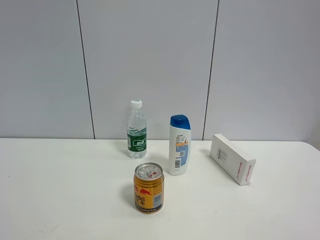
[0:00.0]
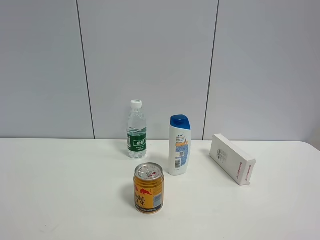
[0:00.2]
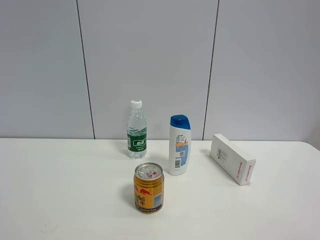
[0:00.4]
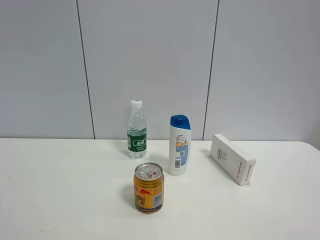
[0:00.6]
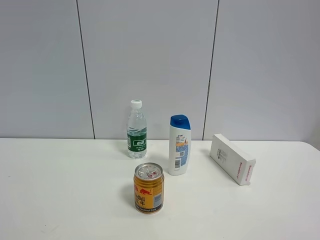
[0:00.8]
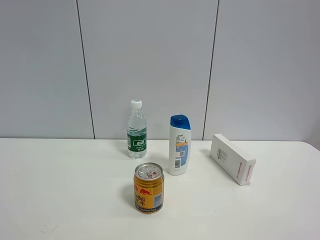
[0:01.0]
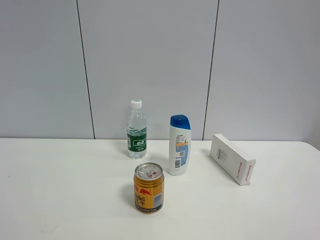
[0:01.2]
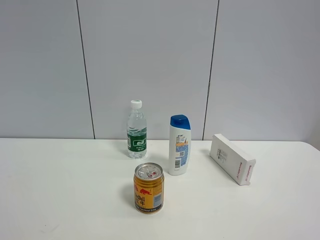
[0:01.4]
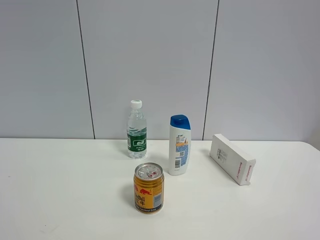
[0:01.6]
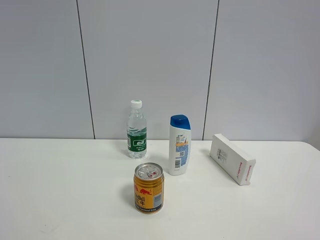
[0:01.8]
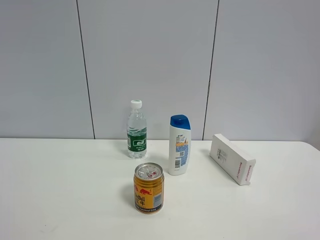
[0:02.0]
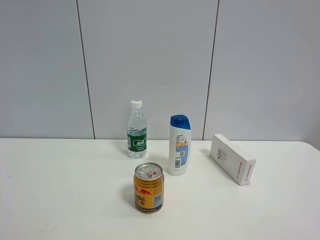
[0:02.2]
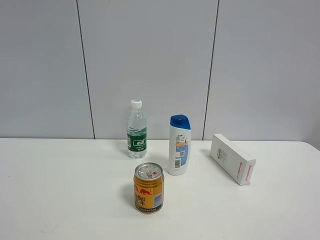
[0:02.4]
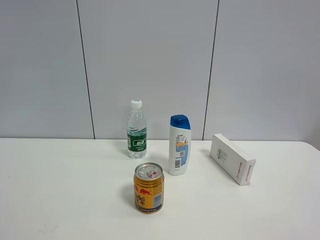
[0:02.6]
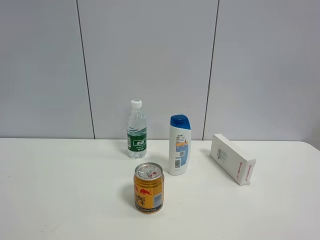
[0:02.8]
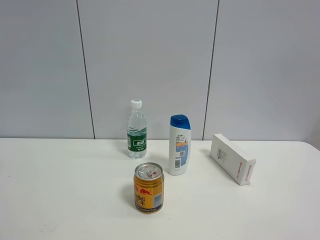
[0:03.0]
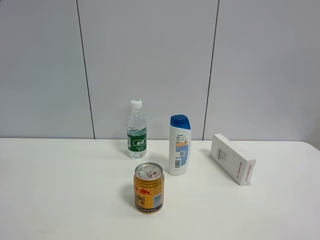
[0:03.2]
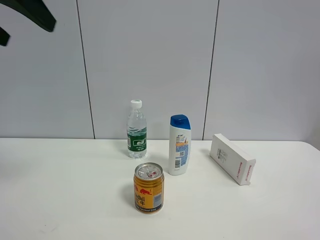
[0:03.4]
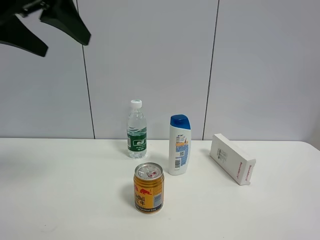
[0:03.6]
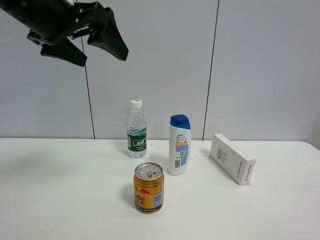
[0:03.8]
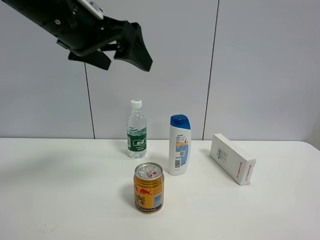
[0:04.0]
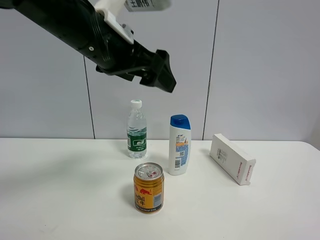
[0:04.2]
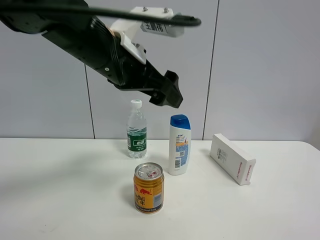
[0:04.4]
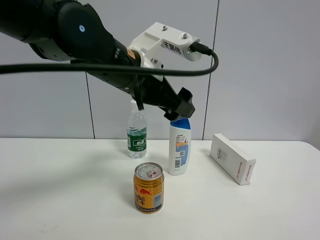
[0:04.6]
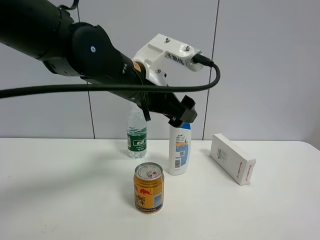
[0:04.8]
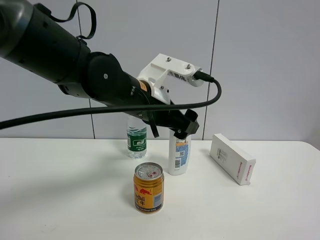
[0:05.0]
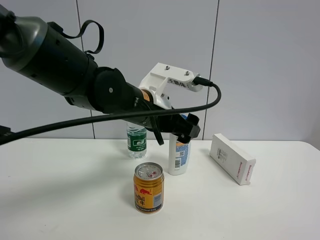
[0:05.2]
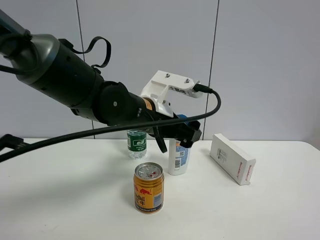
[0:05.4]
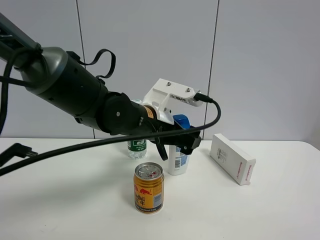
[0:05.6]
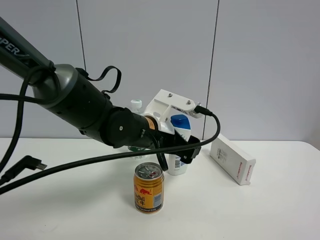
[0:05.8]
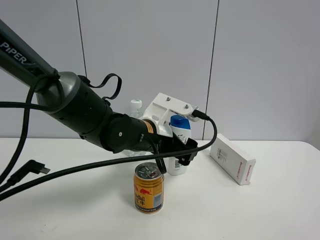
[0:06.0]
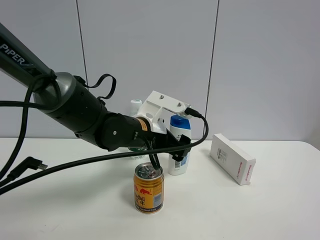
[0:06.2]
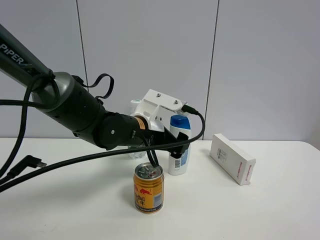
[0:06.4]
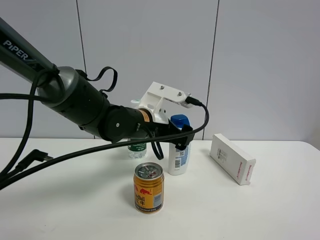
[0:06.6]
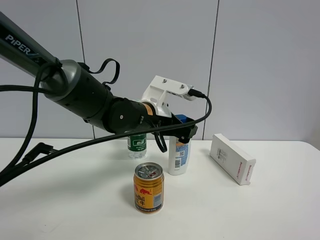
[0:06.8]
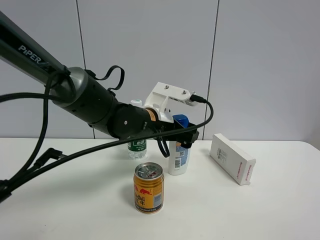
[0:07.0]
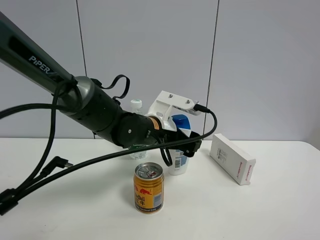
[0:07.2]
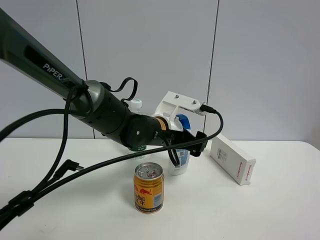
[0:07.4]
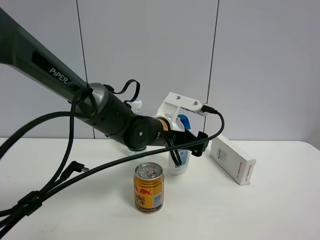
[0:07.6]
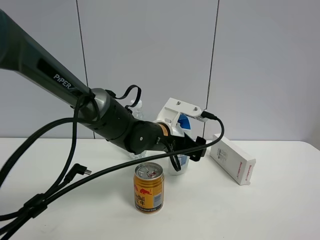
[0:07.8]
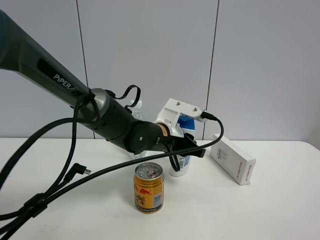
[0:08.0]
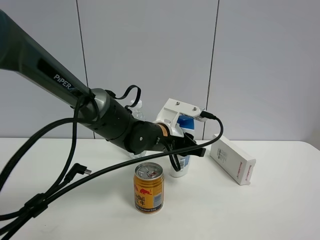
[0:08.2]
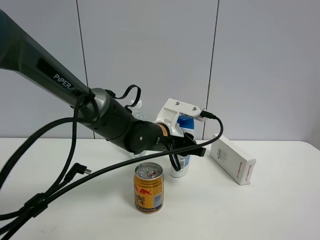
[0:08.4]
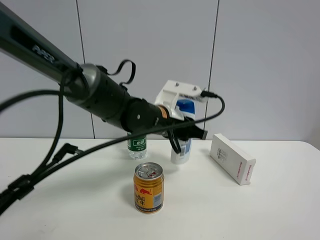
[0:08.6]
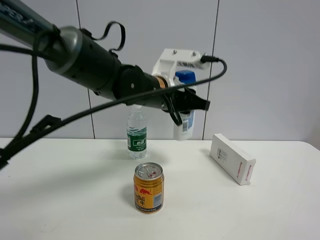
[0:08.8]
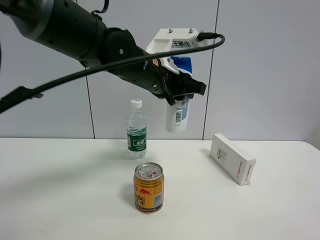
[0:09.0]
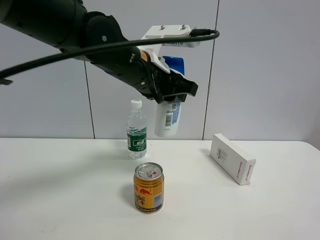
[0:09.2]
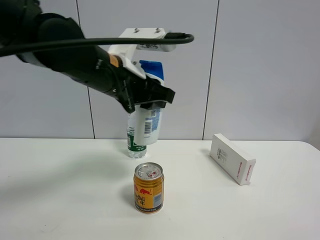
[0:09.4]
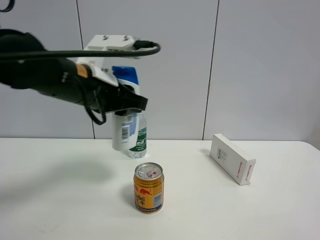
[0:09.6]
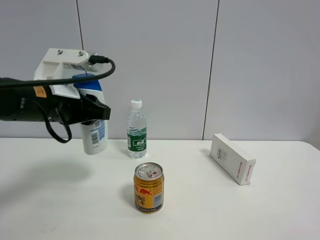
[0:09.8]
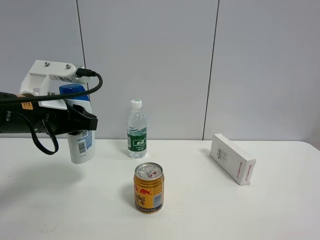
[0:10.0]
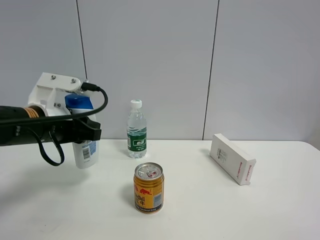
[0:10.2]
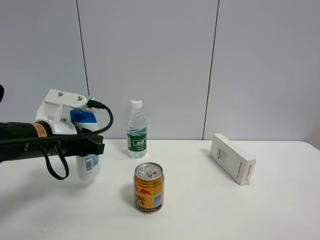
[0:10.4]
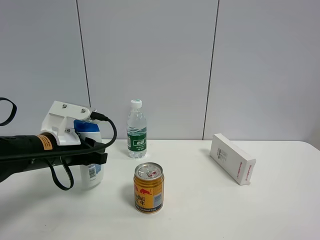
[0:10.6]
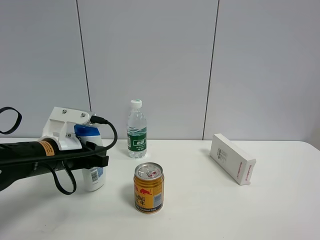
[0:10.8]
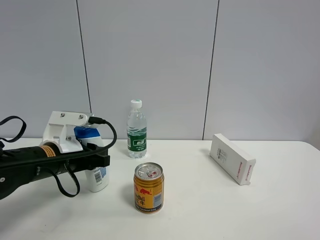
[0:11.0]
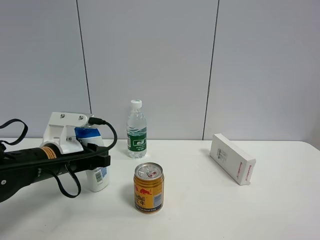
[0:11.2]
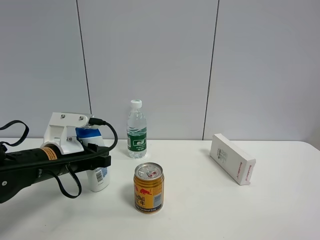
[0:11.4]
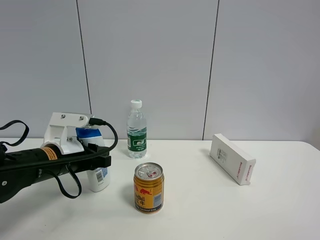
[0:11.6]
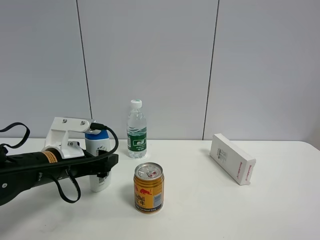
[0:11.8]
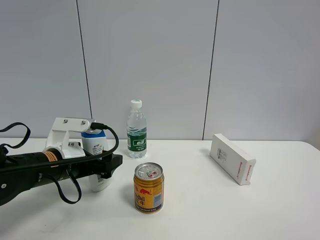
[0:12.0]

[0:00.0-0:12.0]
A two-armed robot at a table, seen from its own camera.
Task of the whole recording: the gripper move the object.
Step, 0:00.0 to 0:08.0: Grasp the shampoo with the left gripper.
0:00.0 to 0:01.6: Both grippers stay about where they are.
0:03.0 to 0:04.4: The left gripper heads to the right, downward and forward, covering some 30 cm.
0:04.4 to 0:06.0: The left gripper is displaced downward by approximately 15 cm.
0:06.0 to 0:07.6: The grippers move only a little.
0:07.6 to 0:09.0: The left gripper moves upward, about 15 cm, and closes its fingers.
0:09.0 to 0:10.4: The left gripper travels to the left and downward by roughly 20 cm.
0:10.4 to 0:12.0: The left gripper goes about 5 cm downward, and opens its fingers.

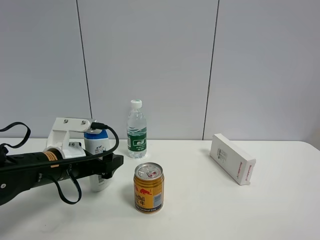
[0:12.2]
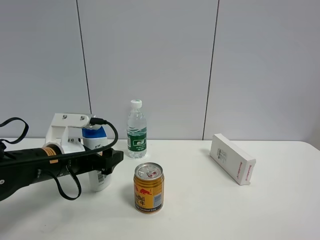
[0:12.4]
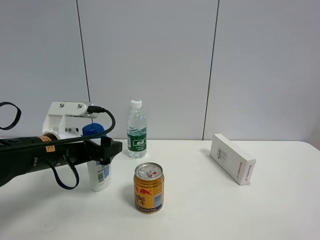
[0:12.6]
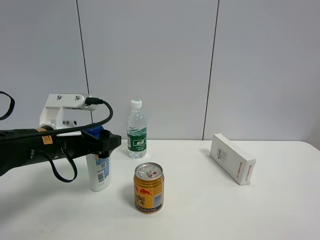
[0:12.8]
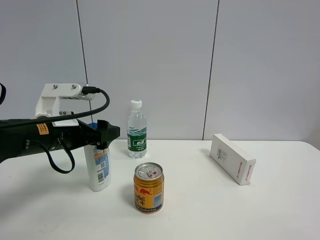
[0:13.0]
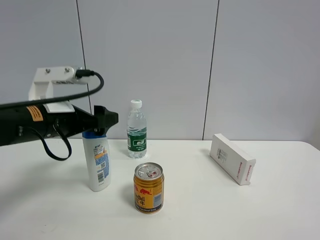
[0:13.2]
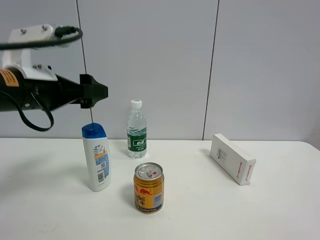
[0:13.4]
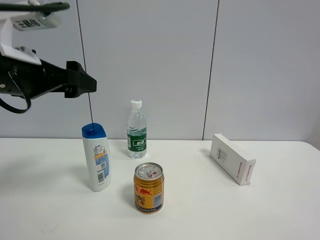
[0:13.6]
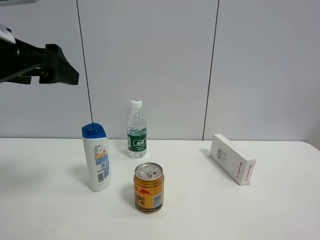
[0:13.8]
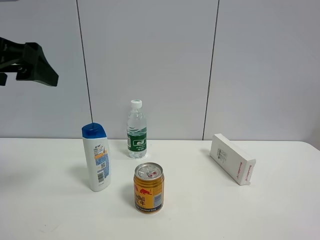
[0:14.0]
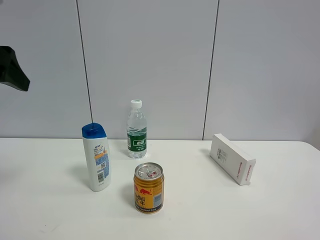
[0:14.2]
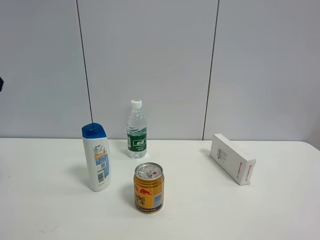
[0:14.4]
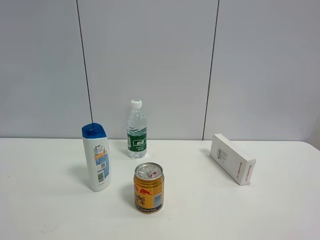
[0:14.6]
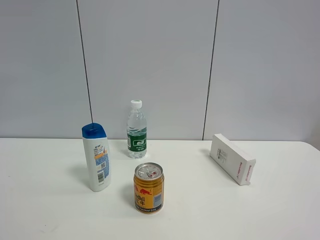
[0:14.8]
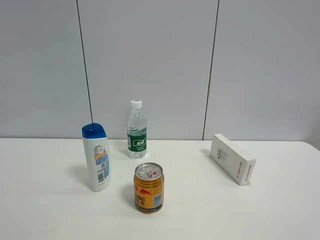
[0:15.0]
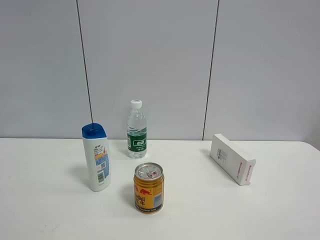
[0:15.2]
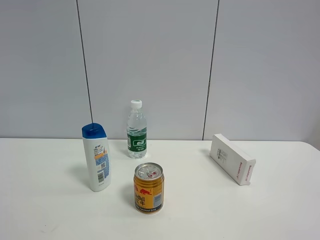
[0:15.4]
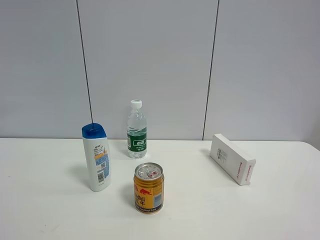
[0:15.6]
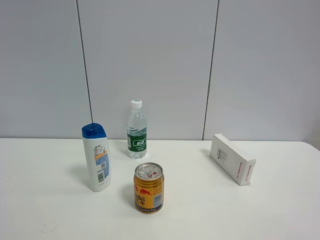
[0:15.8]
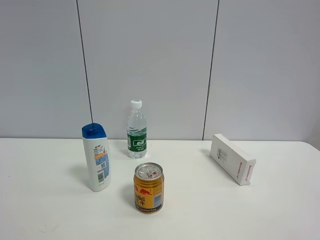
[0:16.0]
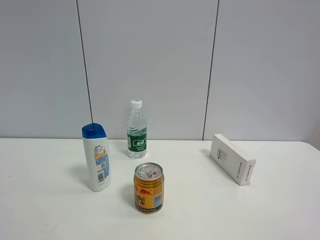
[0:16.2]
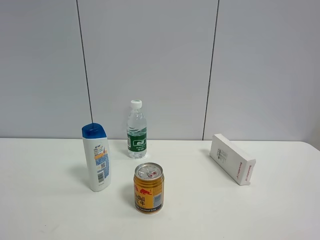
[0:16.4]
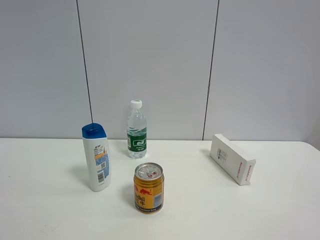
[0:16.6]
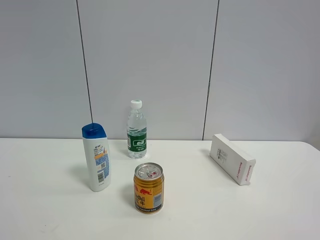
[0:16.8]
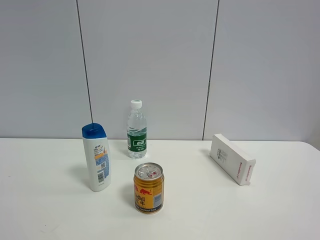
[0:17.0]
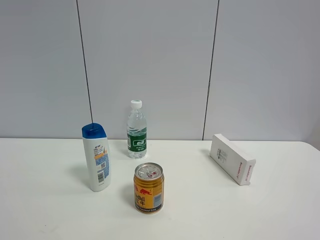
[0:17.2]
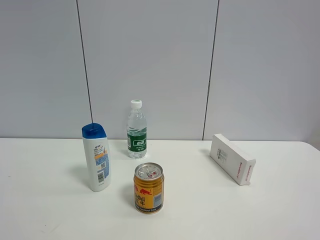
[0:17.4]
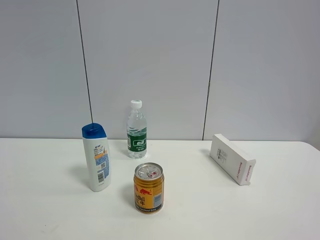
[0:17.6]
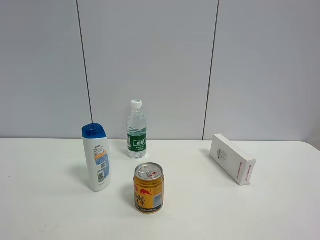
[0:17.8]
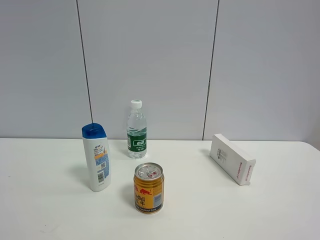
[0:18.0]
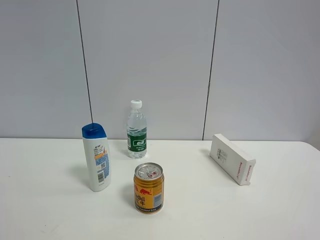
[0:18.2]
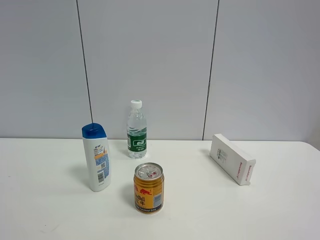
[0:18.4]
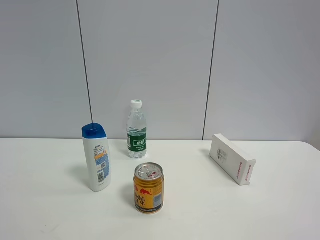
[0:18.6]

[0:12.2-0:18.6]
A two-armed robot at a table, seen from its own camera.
Task of the whole recording: the gripper move the object.
0:12.2 to 0:13.8: The left gripper moves upward, roughly 20 cm.
0:13.8 to 0:15.4: The left gripper moves backward and to the left, about 25 cm.
0:17.0 to 0:18.6: Both grippers stay put.

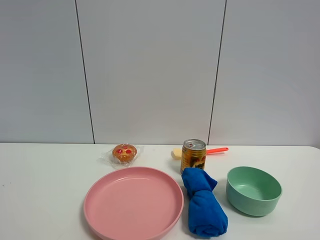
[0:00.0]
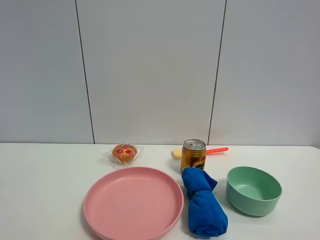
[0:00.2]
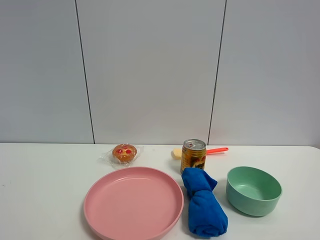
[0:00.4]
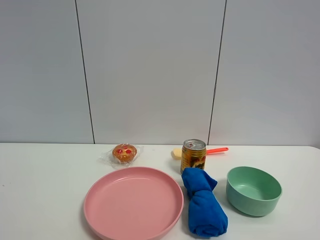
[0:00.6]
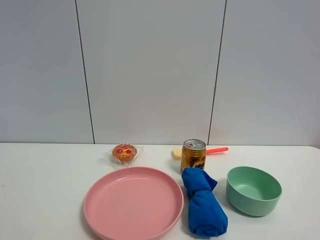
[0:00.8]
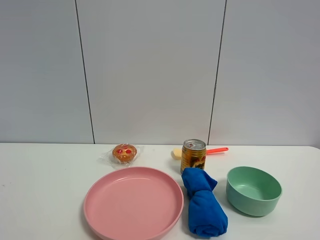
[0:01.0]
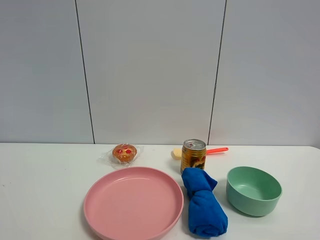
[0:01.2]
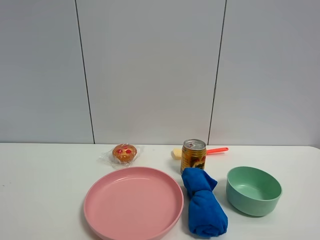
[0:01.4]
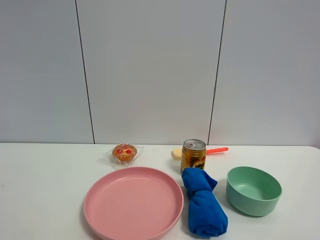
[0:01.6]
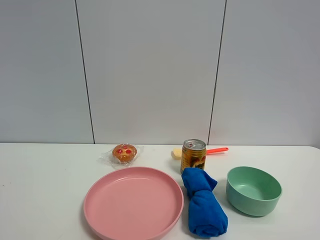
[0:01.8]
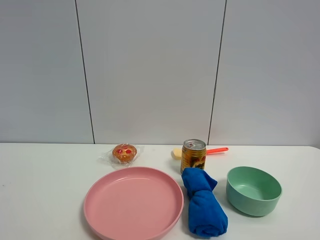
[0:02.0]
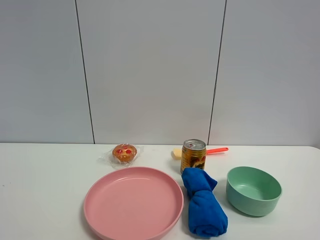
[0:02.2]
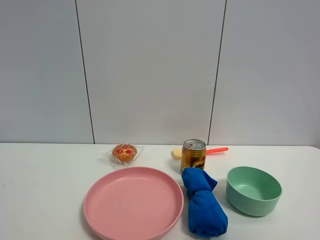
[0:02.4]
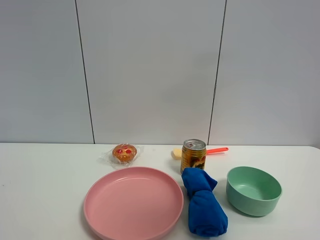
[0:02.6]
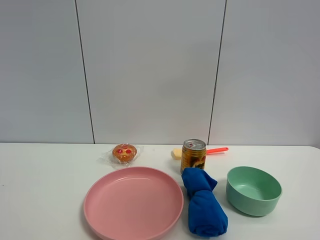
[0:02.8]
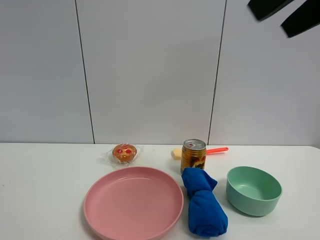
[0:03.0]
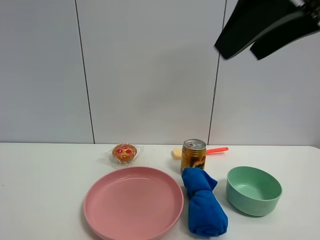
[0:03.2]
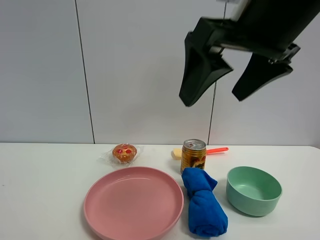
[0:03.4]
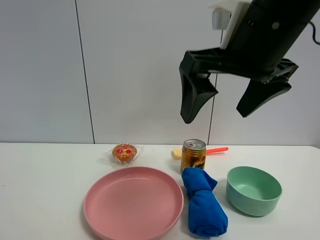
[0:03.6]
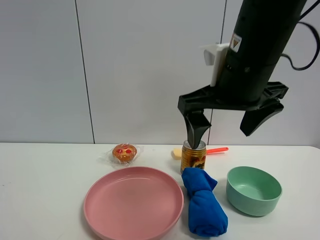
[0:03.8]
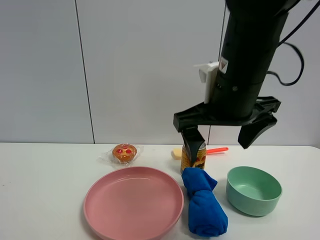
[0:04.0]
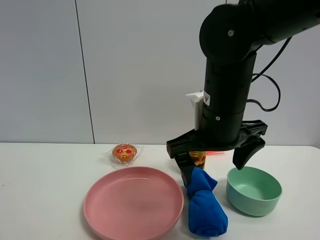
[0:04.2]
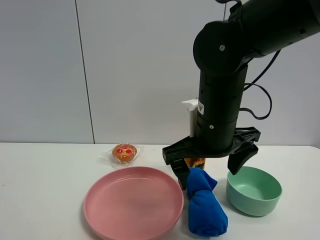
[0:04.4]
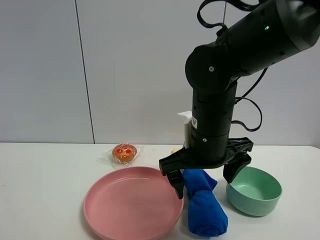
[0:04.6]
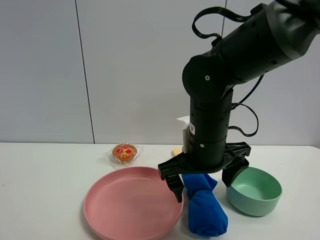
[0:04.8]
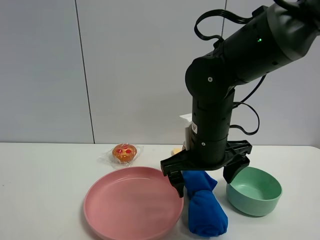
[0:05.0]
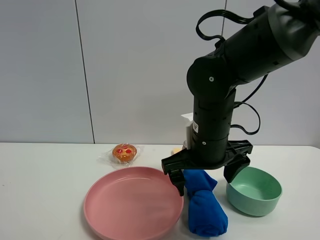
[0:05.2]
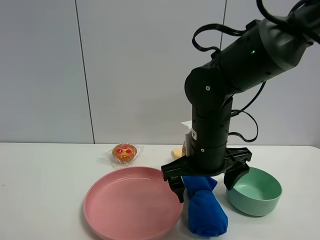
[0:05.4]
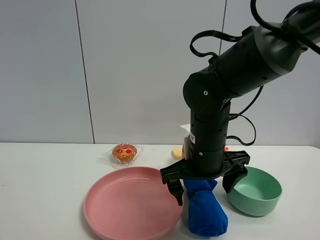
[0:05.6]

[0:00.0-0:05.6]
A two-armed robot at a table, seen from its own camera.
Task of the whole recording: the gripper move the object.
0:00.0 to 0:01.4: Both grippers stay about where they are.
0:01.4 to 0:02.8: The right gripper shifts some 20 cm upward and forward.
0:02.8 to 0:04.2: The right gripper moves downward, to the left and forward, some 30 cm.
0:04.2 to 0:05.6: The right gripper is displaced downward by some 5 cm.
